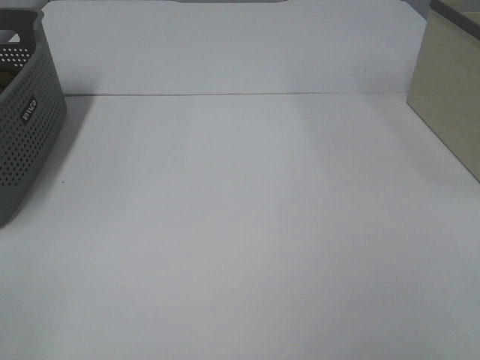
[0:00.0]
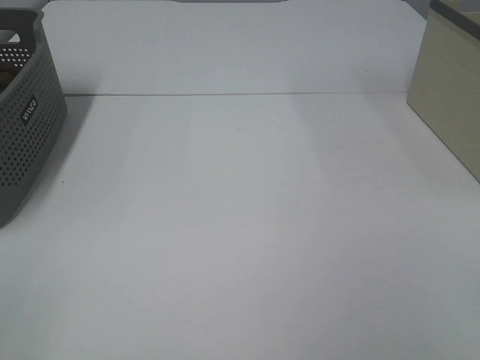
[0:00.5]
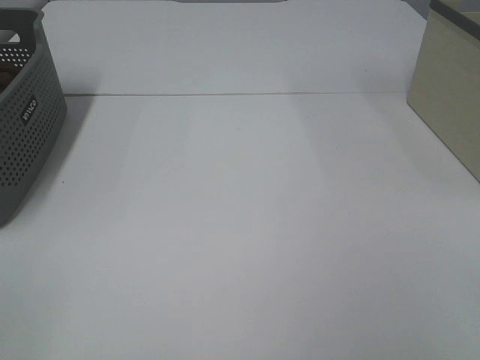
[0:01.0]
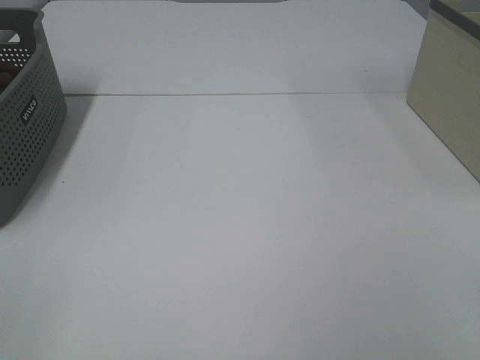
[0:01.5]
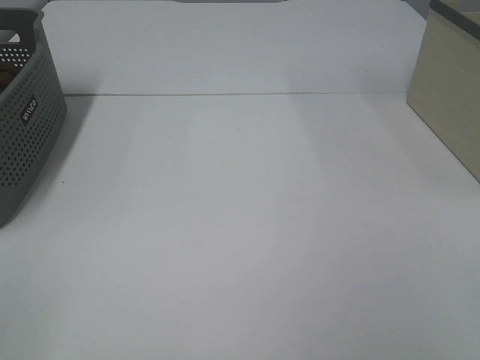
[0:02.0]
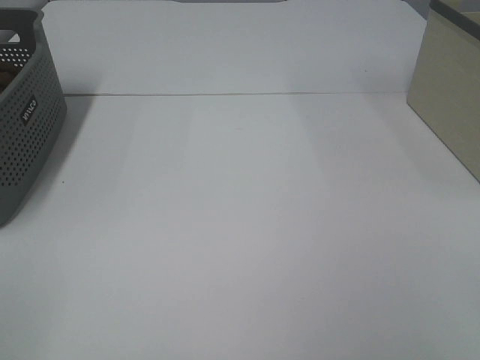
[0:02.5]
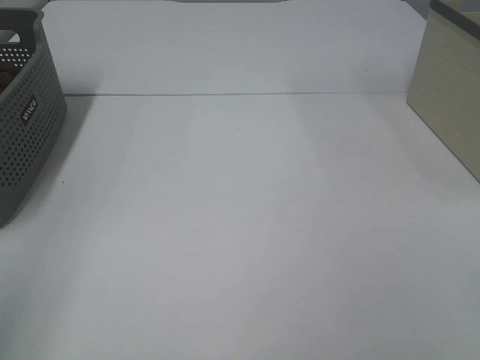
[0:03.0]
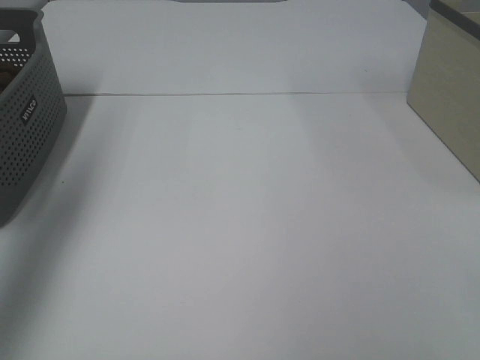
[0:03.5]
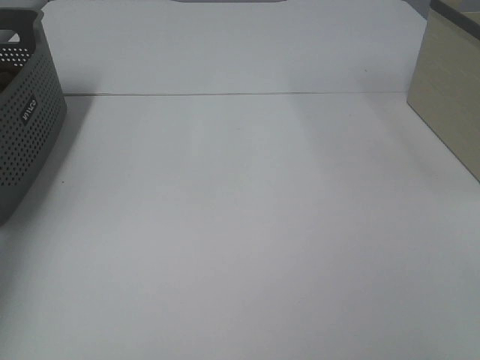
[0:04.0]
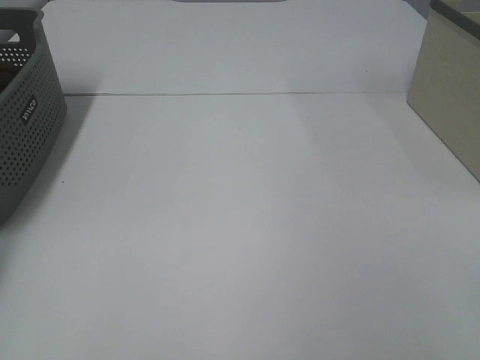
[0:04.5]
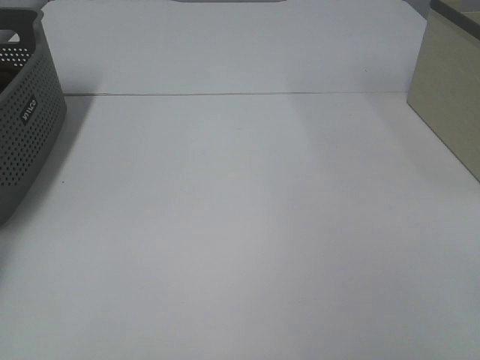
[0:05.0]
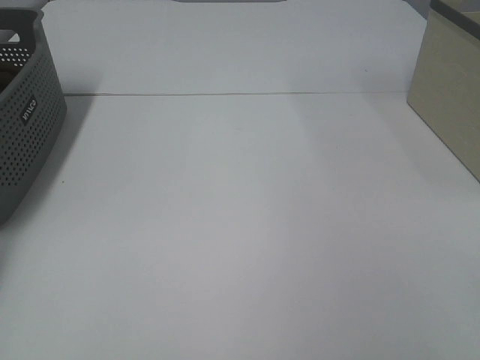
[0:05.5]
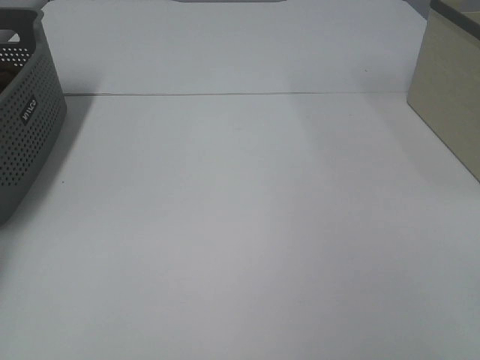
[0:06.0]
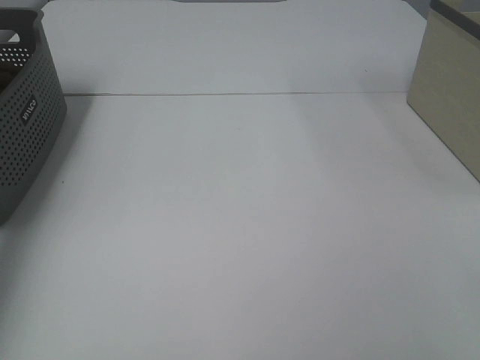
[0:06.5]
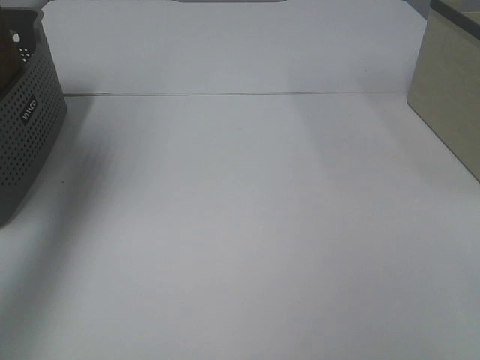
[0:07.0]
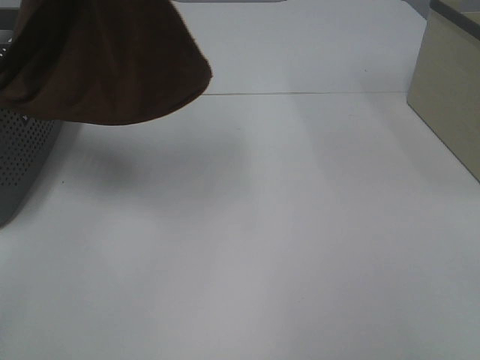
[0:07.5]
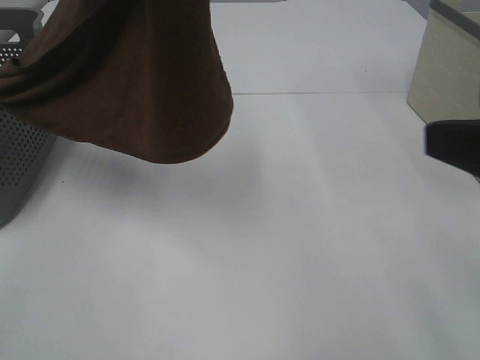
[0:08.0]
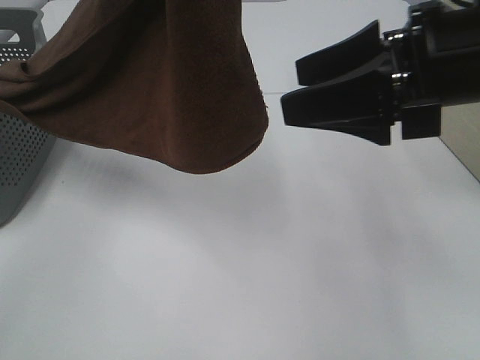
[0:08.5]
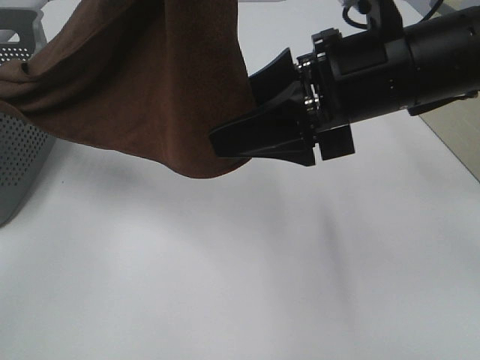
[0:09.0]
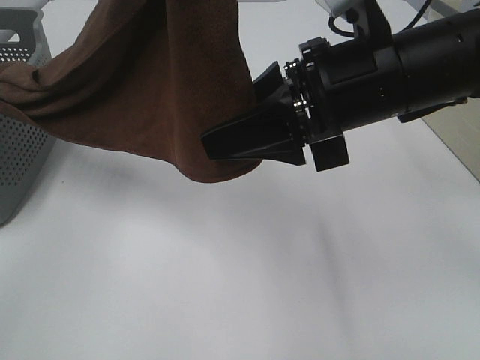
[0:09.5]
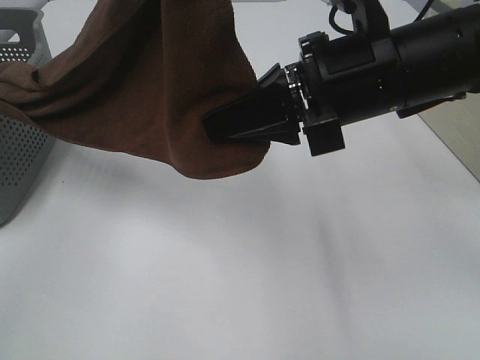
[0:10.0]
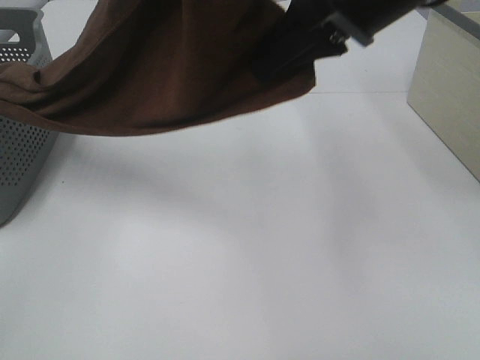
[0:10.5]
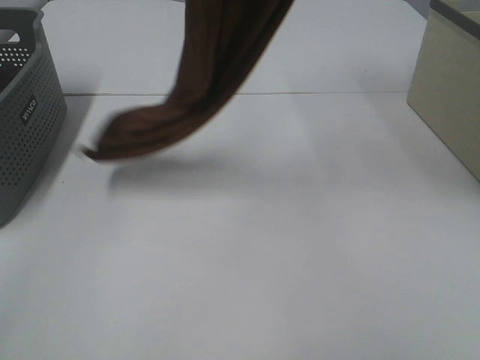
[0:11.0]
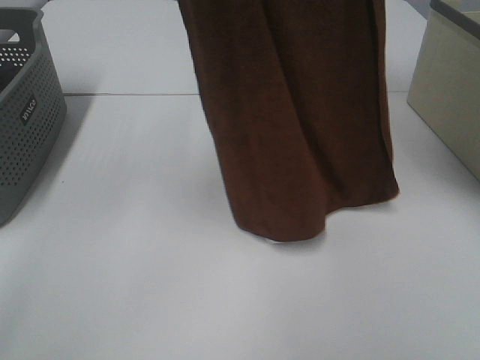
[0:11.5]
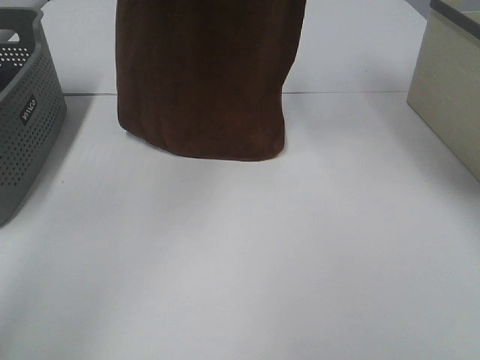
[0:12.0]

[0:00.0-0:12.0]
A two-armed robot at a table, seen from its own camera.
Task of the whole recording: Remove the towel and place it.
Step, 7.0 to 11.0 s: Right hand: grab a corner of the brown towel and straighten it.
0.0 to 2.0 s: Neither gripper changes place.
2.0 to 4.0 s: The left gripper travels forward by about 40 cm.
4.0 to 6.0 s: The left gripper goes about 10 cm downward and to the left, and closes.
6.0 to 8.0 s: The right gripper moves forward and to the left, some 15 cm, while the left gripper travels to the right, upward and backward by approximately 50 cm.
8.0 to 10.0 s: The right gripper travels to the left and forward by some 20 cm, and closes its fingers.
10.0 to 12.0 s: The left gripper shifts about 15 cm forward; the right gripper heads upward and forward, covering some 30 cm.

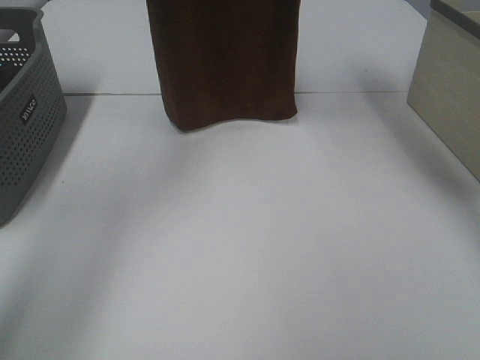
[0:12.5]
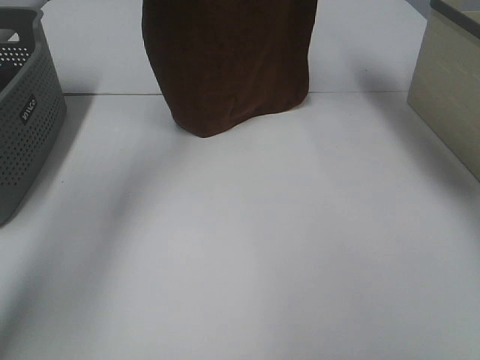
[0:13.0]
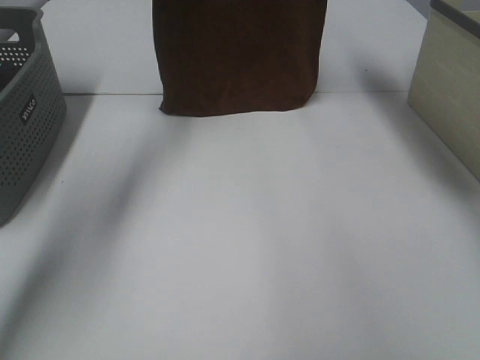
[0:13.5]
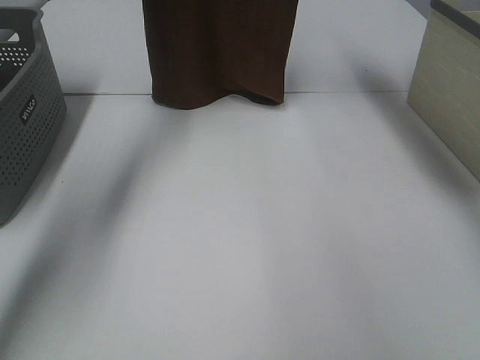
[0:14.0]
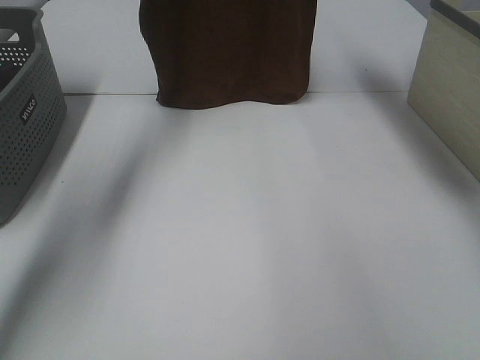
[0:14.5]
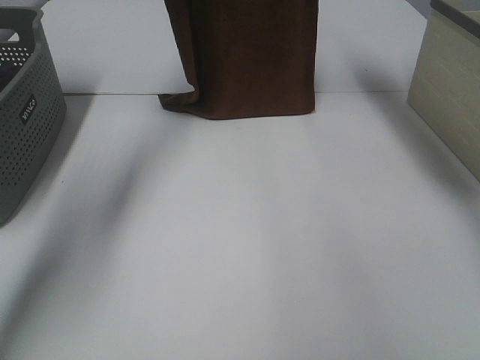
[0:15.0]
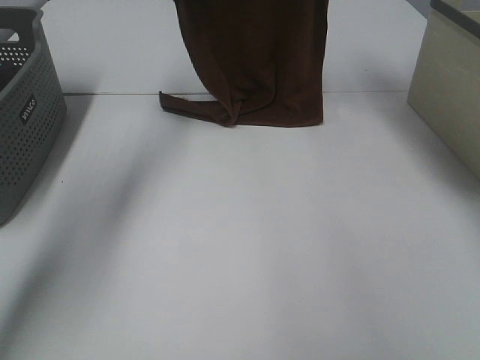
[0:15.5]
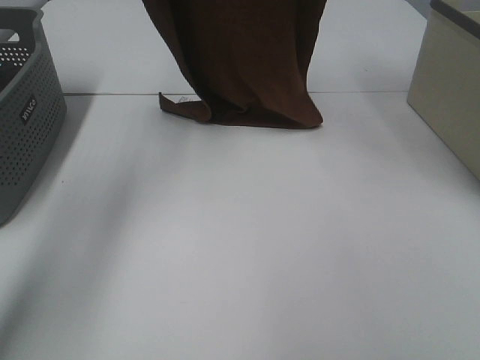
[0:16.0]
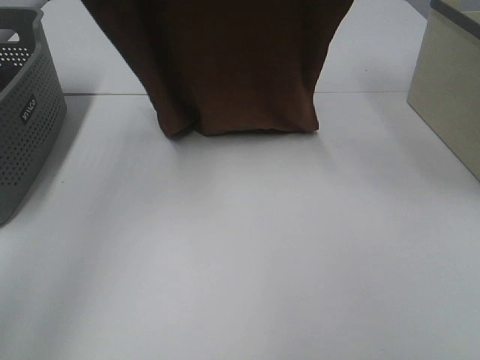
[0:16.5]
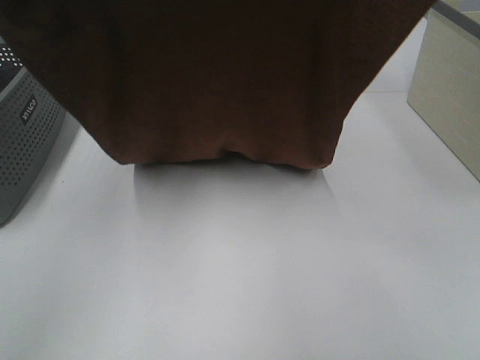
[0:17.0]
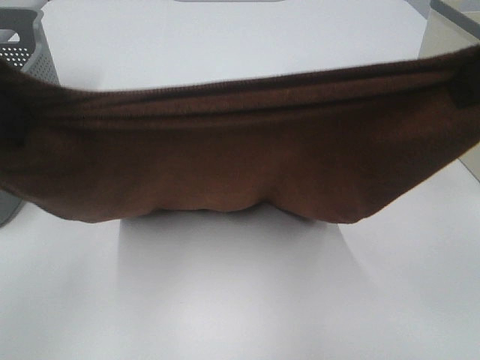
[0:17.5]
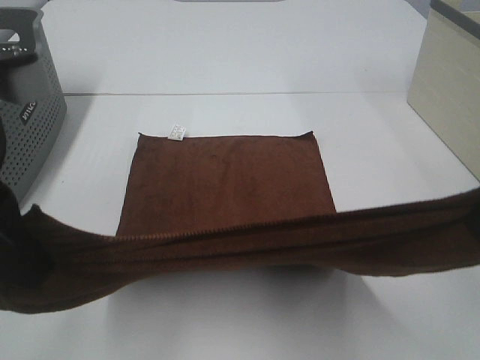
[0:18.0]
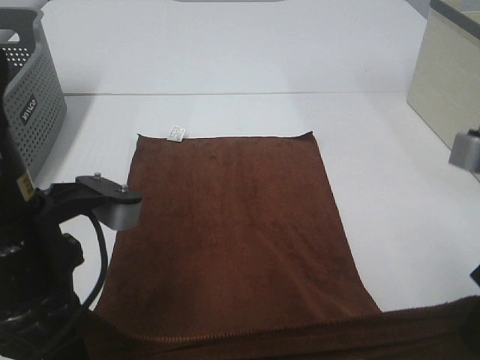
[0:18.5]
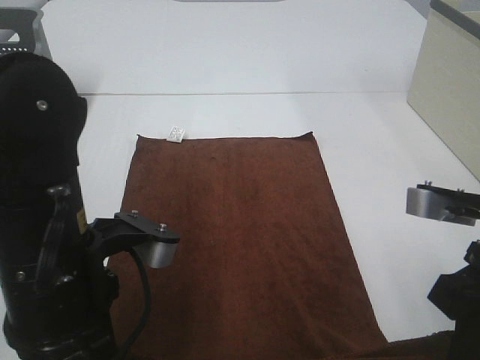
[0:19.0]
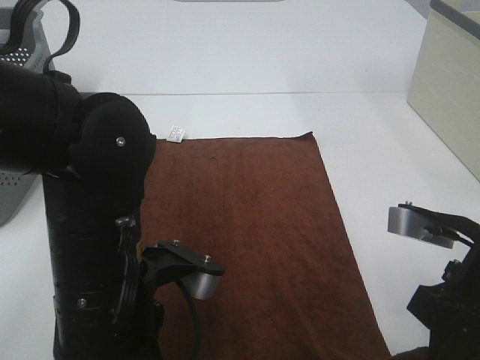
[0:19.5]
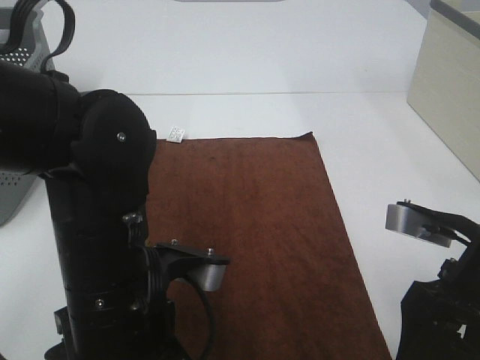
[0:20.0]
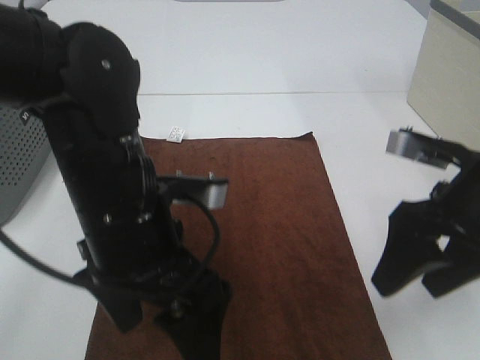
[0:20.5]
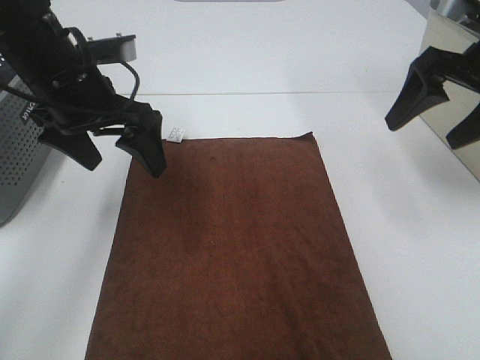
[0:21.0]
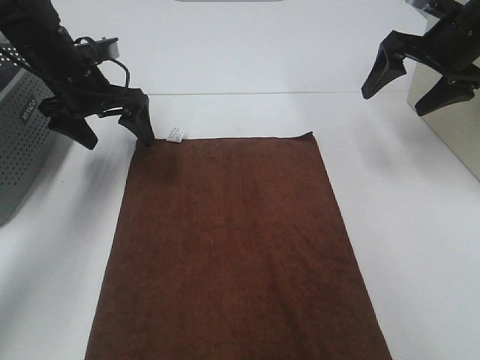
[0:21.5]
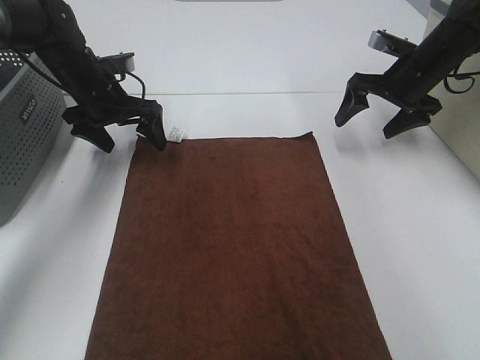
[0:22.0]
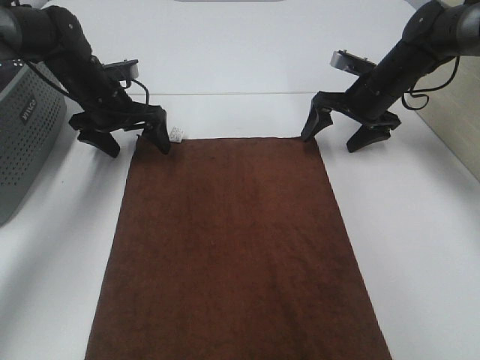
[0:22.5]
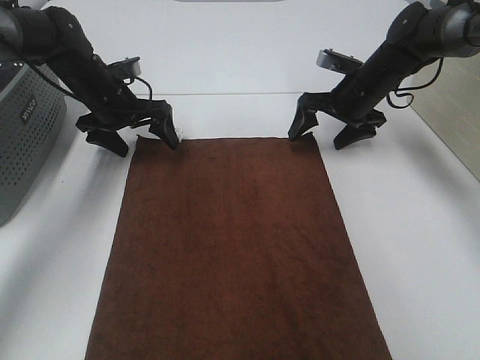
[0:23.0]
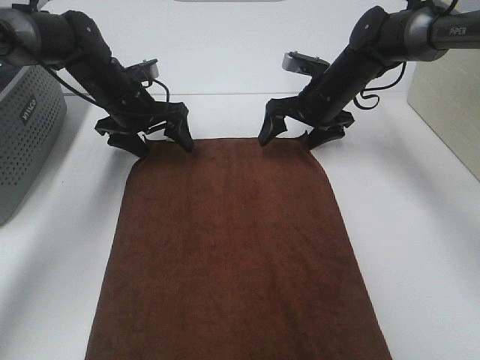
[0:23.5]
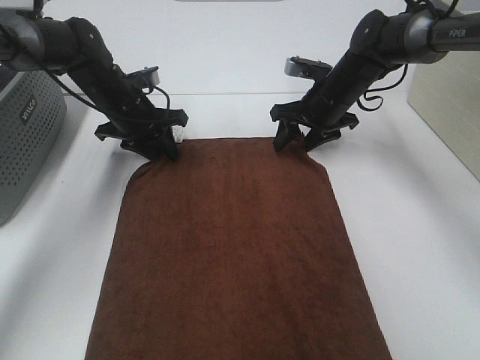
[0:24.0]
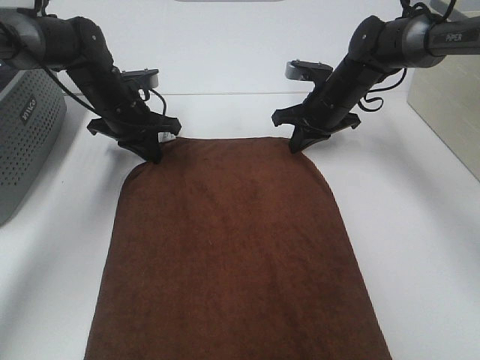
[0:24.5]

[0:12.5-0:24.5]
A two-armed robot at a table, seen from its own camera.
Task of the whole recording: Remove the towel and place it.
Step, 12.5 to 16.0 s: Left hand: spread the brown towel flat on the table.
Step, 12.5 to 16.0 s: Right hand: spread the brown towel flat on the table.
Step, 16.5 to 23.0 s: Left hand:adjust the brown towel.
Step, 16.5 to 23.0 s: Right hand:adjust the brown towel.
12.5 to 14.5 s: The two grippers go some 10 cm forward and downward.
14.5 to 16.5 s: Both grippers travel together backward, about 20 cm.
16.5 to 18.5 s: The grippers both shift downward and backward by about 30 cm.
18.5 to 20.5 s: The right gripper shifts roughly 10 cm forward, and opens its fingers, while the left gripper heads to the right, covering some 5 cm, and opens up.
20.5 to 22.5 s: The left gripper moves forward and to the left, about 30 cm. The right gripper goes roughly 30 cm forward.
22.5 to 24.5 s: The right gripper shifts roughly 5 cm to the left, and closes up. The left gripper closes up.

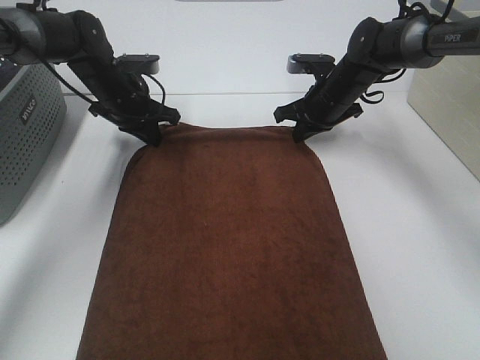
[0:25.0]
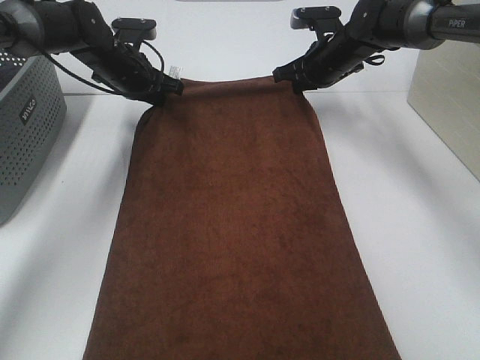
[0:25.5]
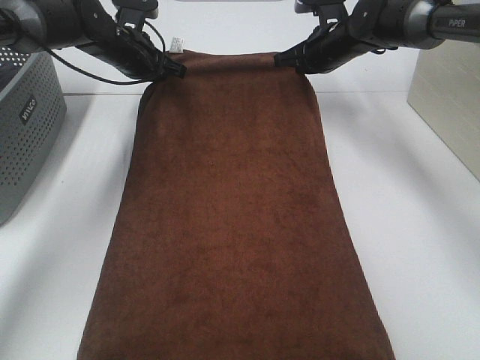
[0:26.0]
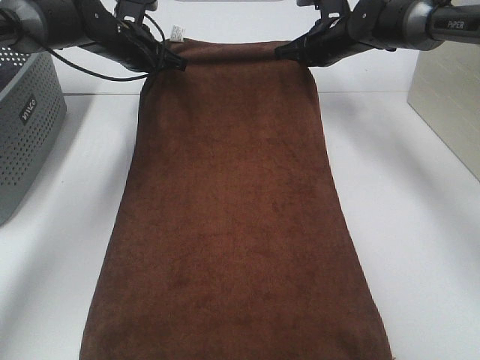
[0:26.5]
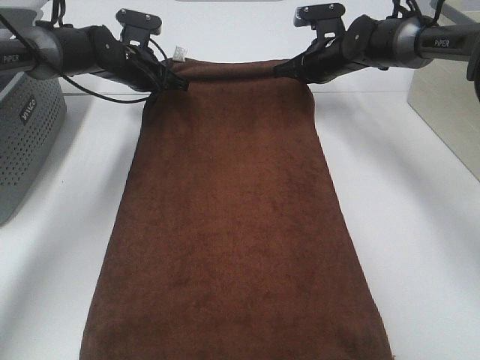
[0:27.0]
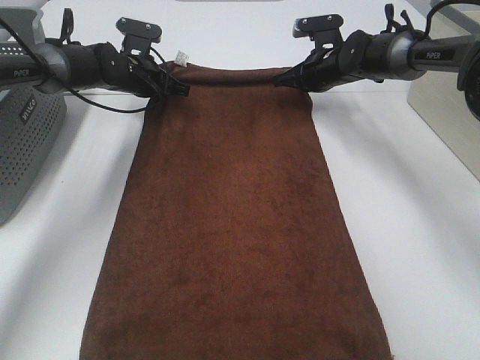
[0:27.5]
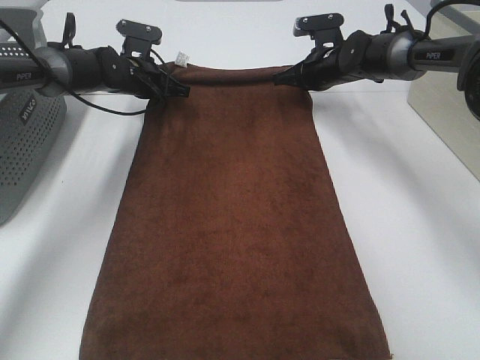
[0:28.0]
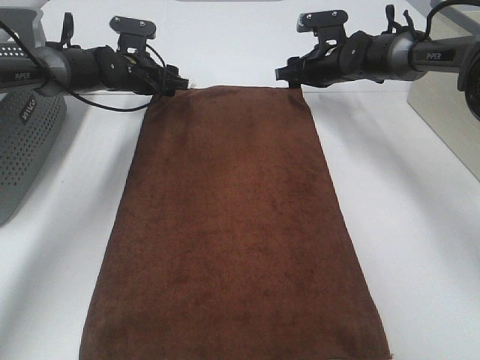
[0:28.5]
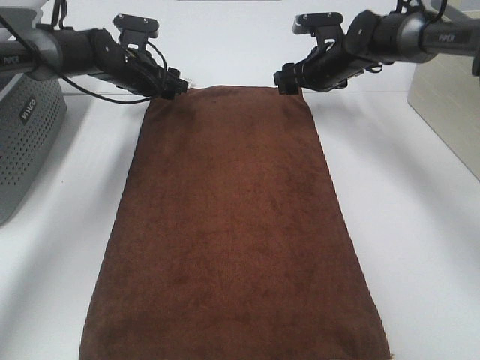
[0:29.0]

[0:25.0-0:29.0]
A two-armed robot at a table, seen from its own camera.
Task of the whole recording: Remove the towel and place it.
25.0 to 27.0 s: Both grippers move forward, about 5 cm.
27.0 to 29.0 s: The right gripper opens. The left gripper opens up.
